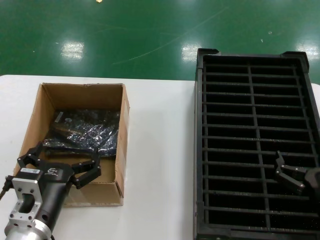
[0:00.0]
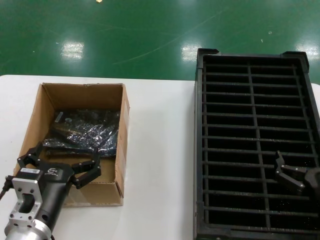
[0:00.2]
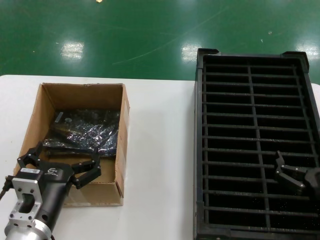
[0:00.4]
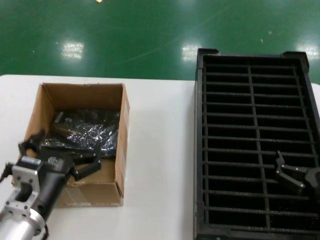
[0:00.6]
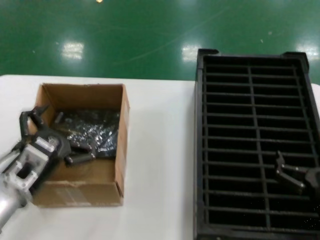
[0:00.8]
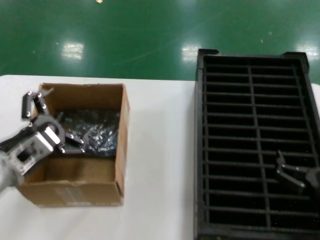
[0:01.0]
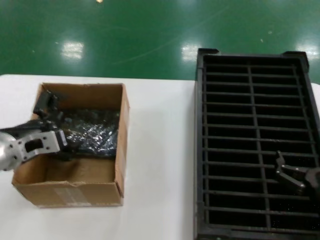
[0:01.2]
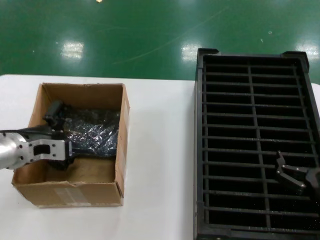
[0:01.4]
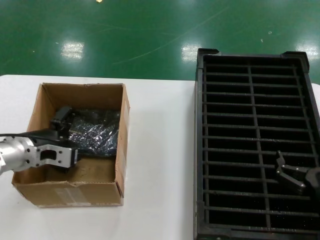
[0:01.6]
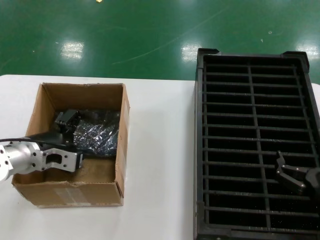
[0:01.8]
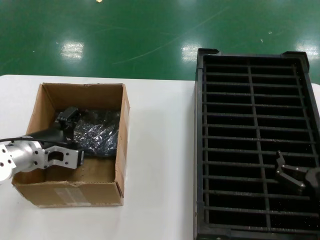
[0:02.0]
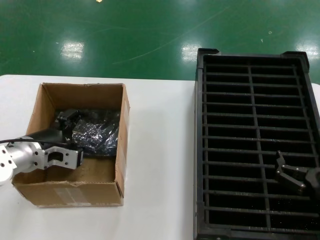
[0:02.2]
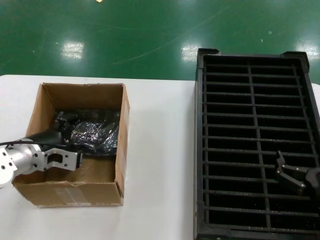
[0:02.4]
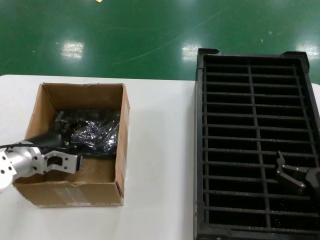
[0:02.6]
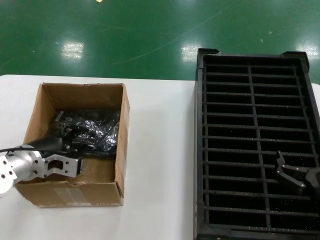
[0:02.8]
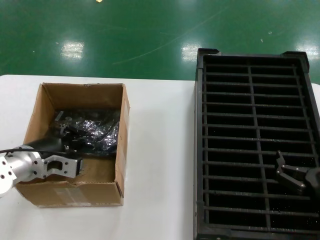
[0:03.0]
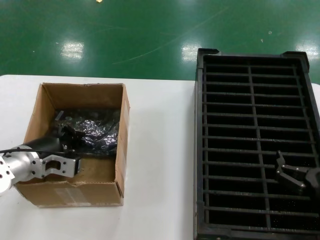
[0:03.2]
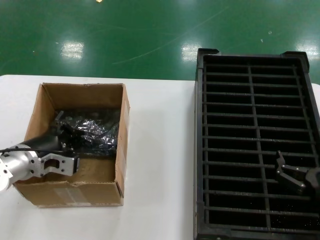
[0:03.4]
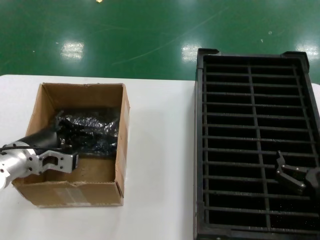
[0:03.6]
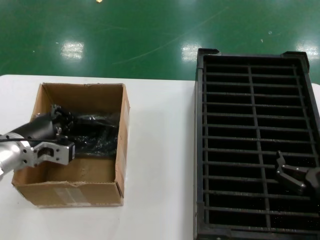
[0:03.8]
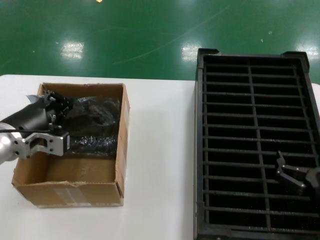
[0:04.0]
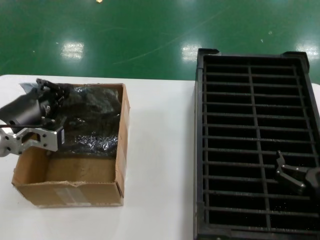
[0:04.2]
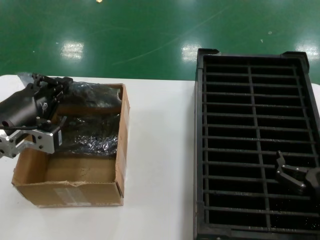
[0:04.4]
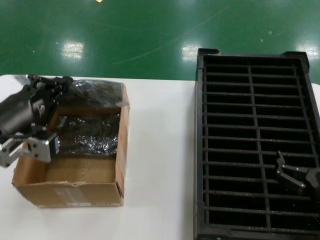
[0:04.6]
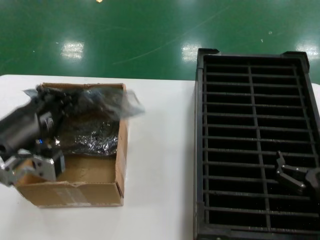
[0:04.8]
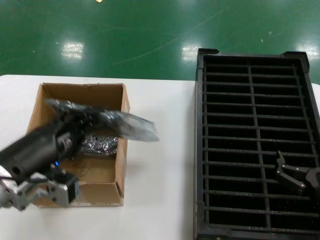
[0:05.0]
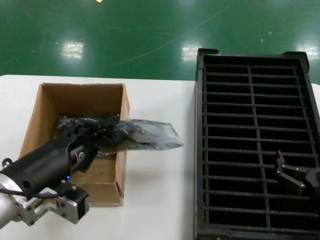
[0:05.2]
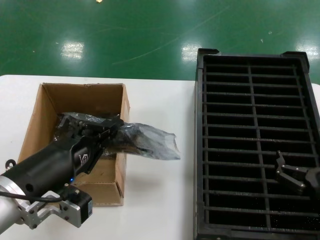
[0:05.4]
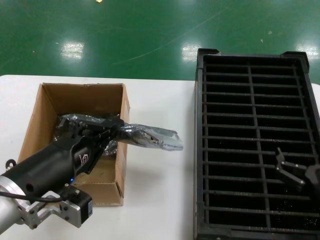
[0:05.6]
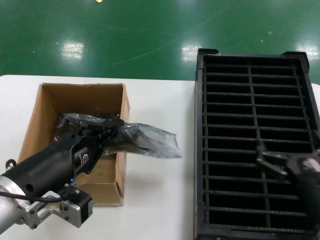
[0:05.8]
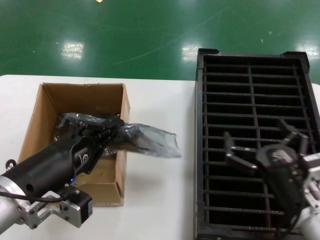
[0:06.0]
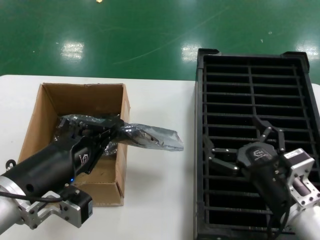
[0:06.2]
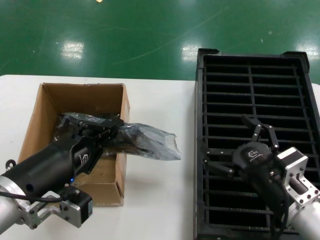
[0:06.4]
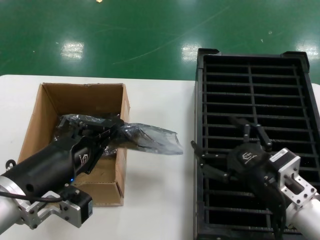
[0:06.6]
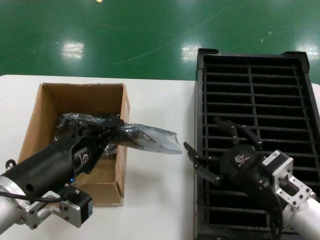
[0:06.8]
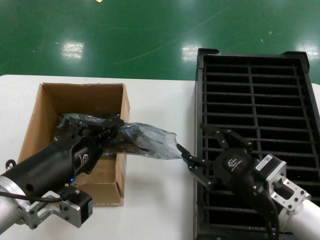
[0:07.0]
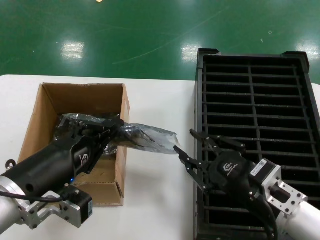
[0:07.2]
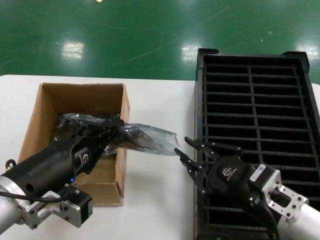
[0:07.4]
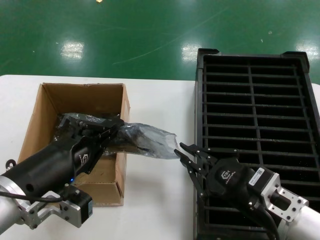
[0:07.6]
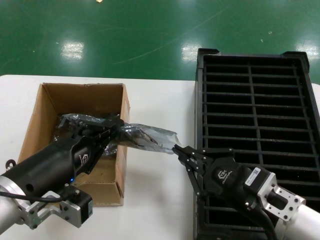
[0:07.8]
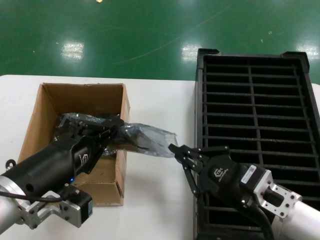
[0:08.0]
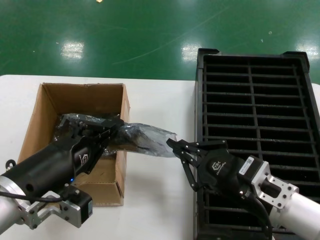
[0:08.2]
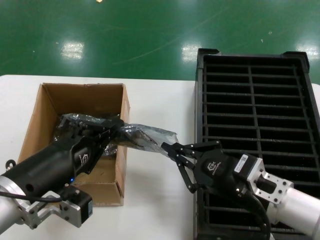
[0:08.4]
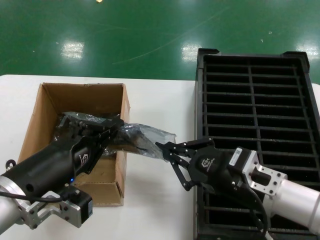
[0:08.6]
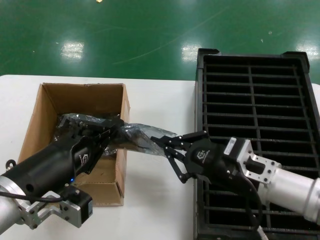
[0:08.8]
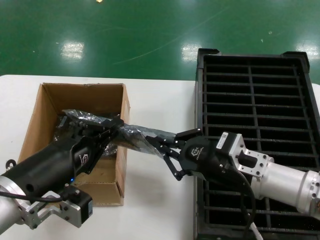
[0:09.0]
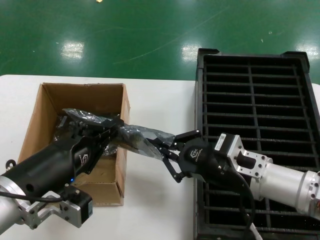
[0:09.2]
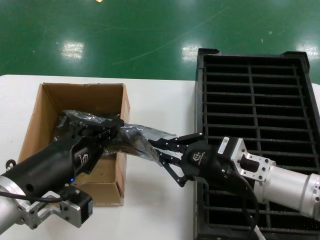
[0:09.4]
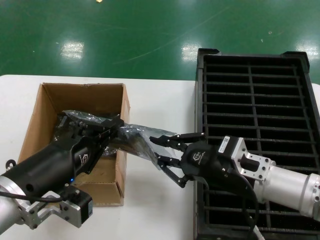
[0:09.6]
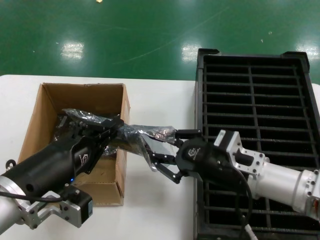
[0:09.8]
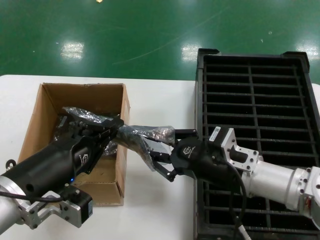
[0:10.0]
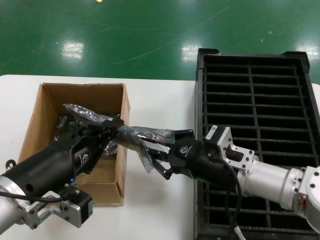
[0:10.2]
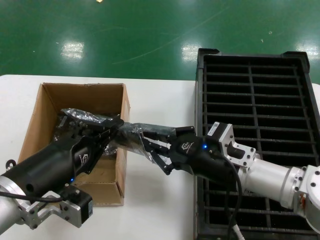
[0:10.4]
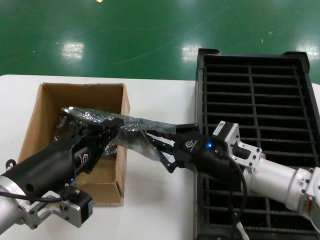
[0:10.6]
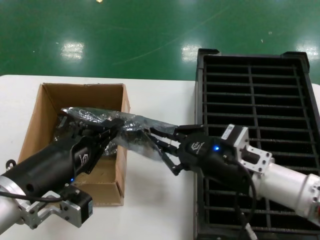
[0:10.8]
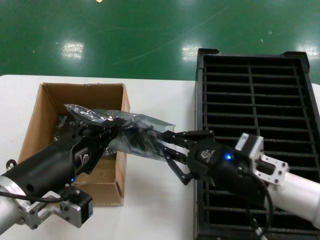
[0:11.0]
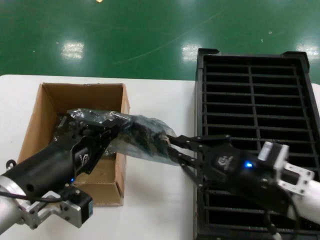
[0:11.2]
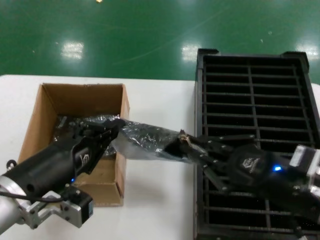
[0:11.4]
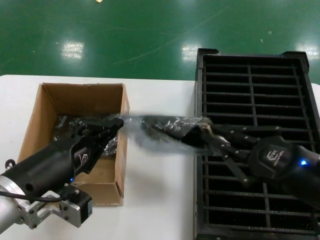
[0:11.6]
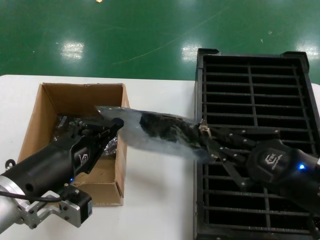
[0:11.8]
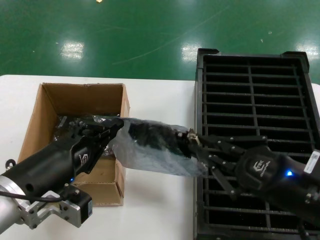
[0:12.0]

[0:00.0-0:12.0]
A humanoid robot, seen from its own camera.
Task of the whole recording: take out graphics card from box remove packaging put into black container.
Step, 0:00.0 to 0:03.6: Grasp the bag.
Step, 0:03.8 to 0:05.6: Lift the bag.
0:00.0 to 0:01.6: The left hand moves forward, to the left and upward, approximately 20 cm.
0:01.6 to 0:03.0: The hands make only small movements.
0:03.0 to 0:04.4: The left hand goes some 10 cm upward and backward.
0:04.4 to 0:06.0: The right hand travels to the left by some 5 cm, while the left hand goes approximately 10 cm backward and to the right.
0:07.6 to 0:09.0: The right hand is displaced forward by approximately 5 cm.
0:09.0 to 0:10.4: There are only small adjustments of the hands.
0:10.4 to 0:12.0: The right hand shifts some 15 cm backward and to the right.

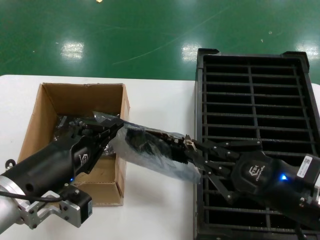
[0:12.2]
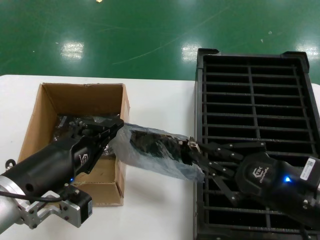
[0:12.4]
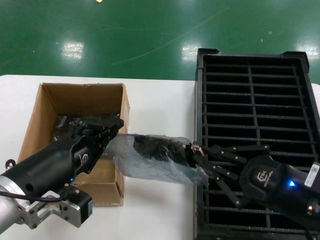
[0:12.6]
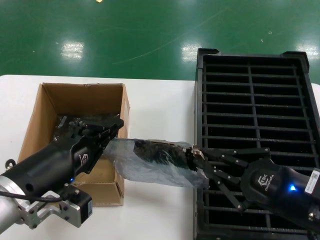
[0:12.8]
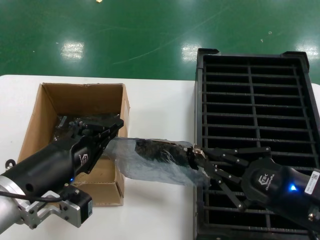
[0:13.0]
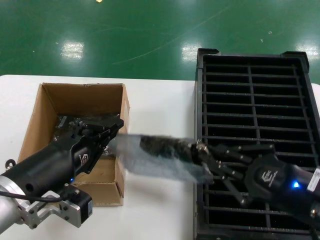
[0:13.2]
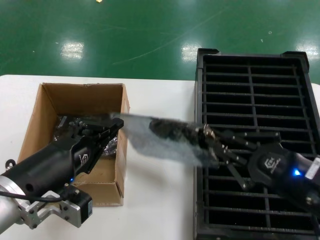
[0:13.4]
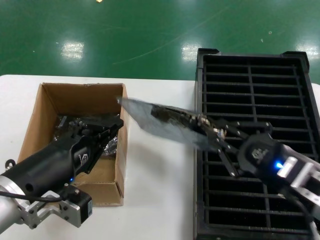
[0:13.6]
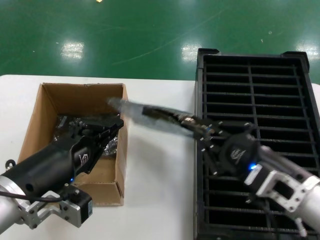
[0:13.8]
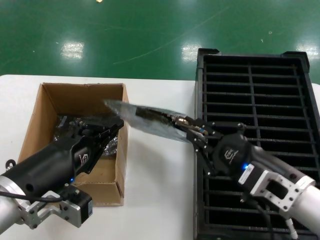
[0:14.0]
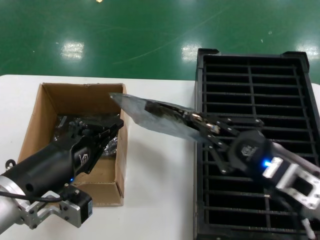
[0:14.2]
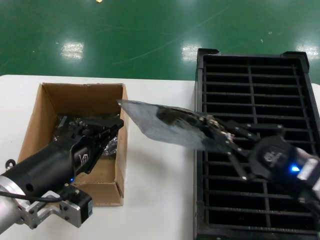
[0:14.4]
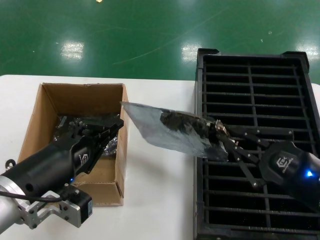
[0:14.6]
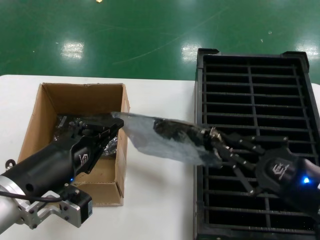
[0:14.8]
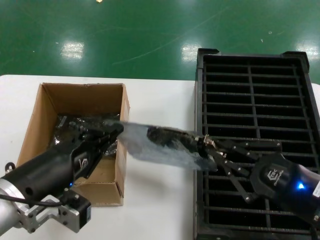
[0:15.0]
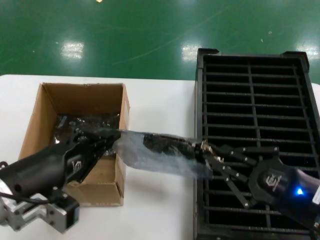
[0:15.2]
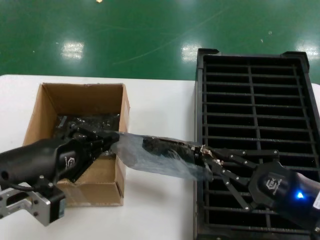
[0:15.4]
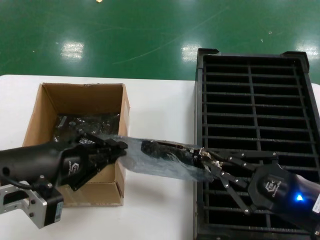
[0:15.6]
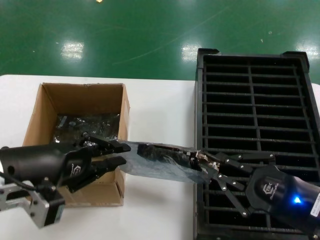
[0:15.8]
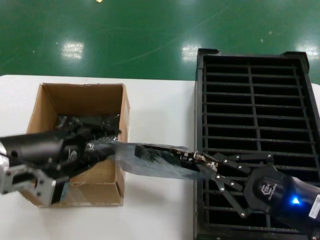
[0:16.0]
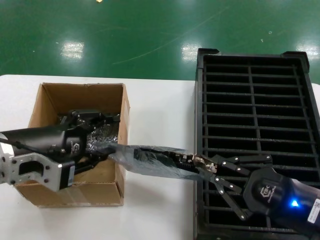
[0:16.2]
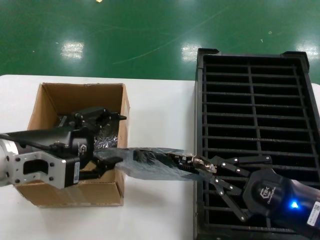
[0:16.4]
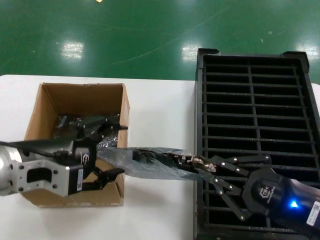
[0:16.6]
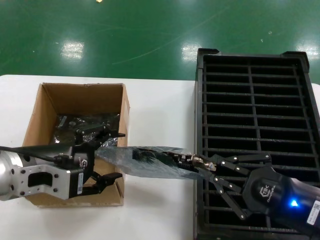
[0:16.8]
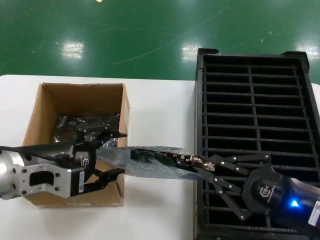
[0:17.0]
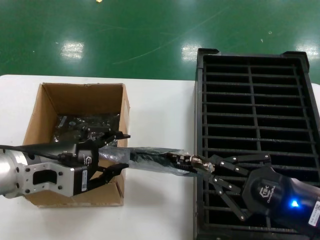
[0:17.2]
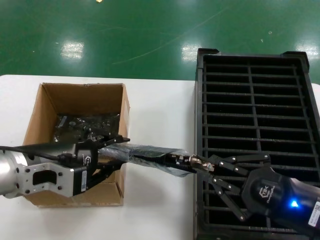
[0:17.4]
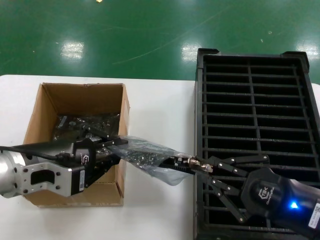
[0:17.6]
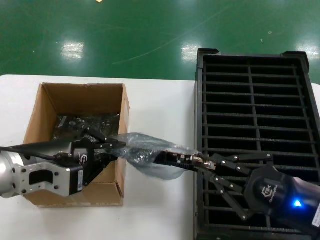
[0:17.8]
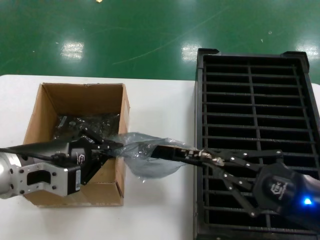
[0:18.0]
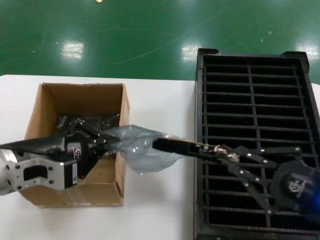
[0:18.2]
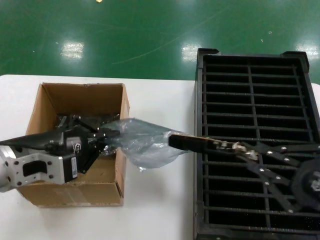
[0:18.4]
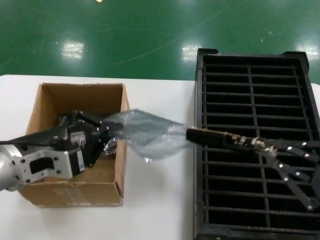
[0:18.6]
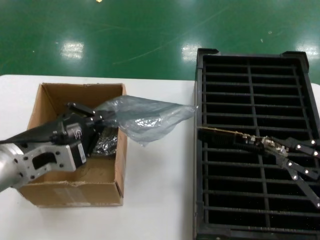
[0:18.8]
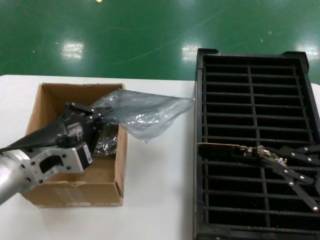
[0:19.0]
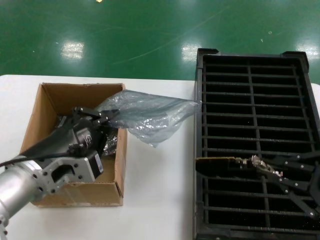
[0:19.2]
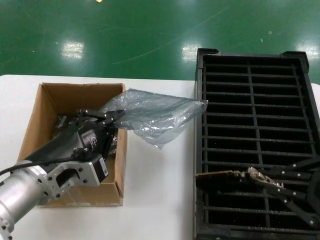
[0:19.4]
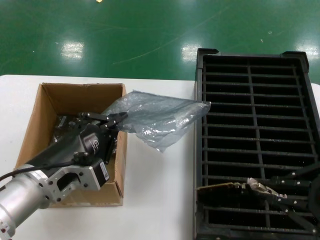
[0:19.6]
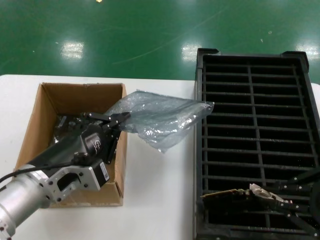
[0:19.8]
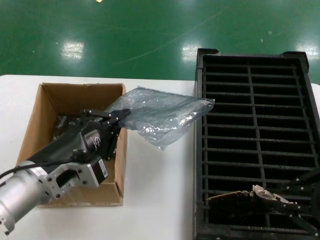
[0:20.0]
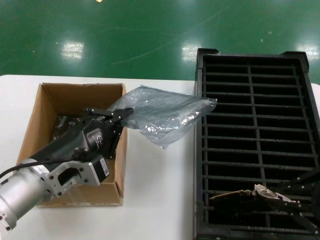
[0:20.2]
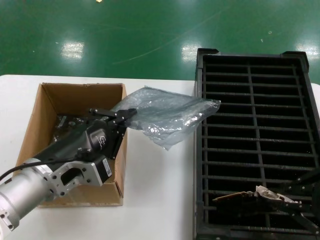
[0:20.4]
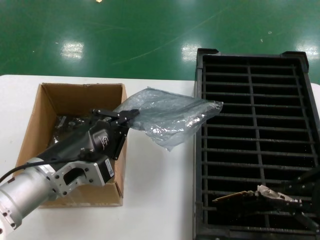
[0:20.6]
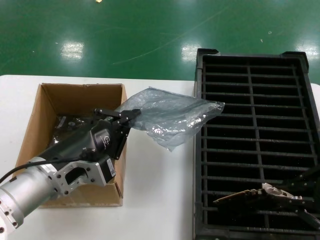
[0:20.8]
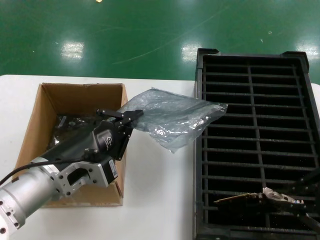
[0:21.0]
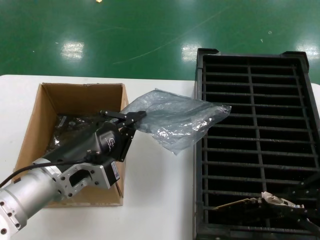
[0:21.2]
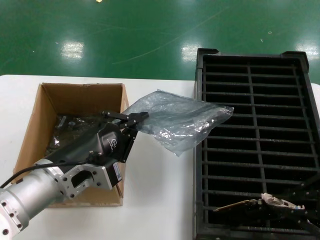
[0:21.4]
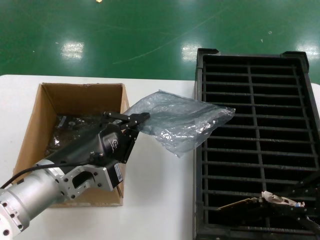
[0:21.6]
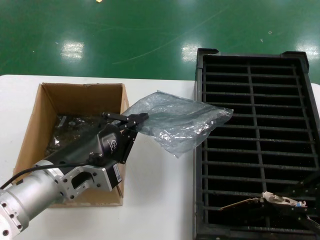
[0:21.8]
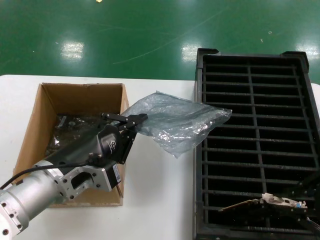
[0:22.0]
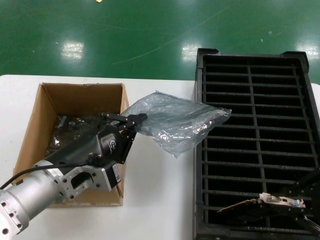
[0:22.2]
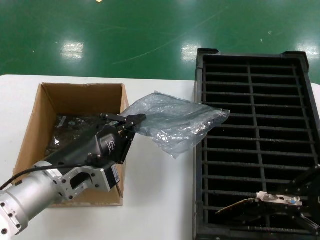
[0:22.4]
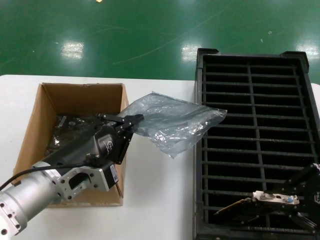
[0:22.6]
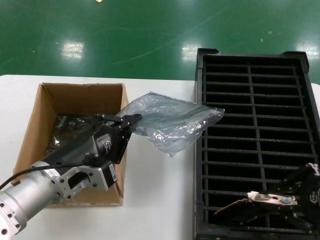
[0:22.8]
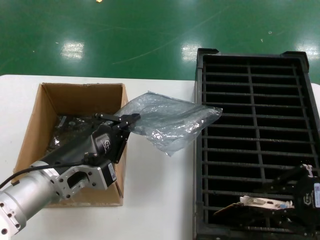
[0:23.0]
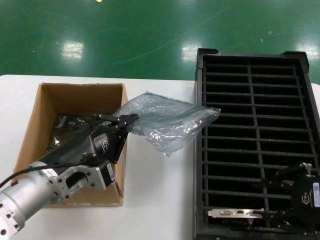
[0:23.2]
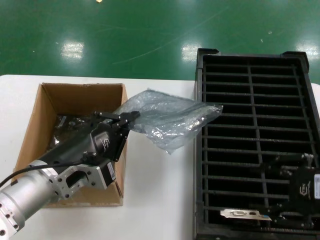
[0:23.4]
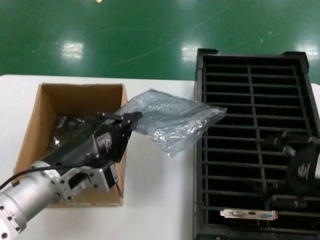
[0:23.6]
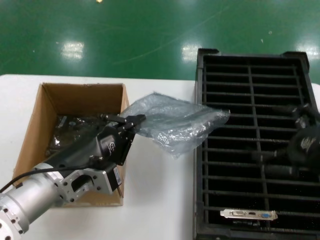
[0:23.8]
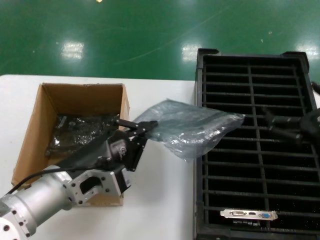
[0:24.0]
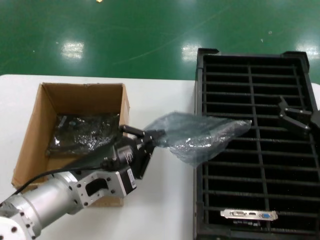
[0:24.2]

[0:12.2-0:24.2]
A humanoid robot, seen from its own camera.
Task of the whole recording: take out graphics card from box remove packaging put into black container.
Step, 0:12.2 to 0:18.8: Take out the hard disk of the bag.
Step, 0:19.0 to 0:23.4: Place the hard disk in the hard disk enclosure.
0:12.2 to 0:13.8: The right hand ends up roughly 5 cm from where it was.
0:13.8 to 0:15.2: The right hand travels to the right by approximately 5 cm.
0:15.2 to 0:16.6: The left hand goes approximately 5 cm upward.
0:16.6 to 0:18.2: The hands stay close to where they were, moving slightly.
0:18.2 to 0:19.8: The left hand goes some 10 cm downward and to the right; the right hand travels upward by some 10 cm.
0:19.8 to 0:22.6: The hands make only small movements.
0:22.6 to 0:24.2: The right hand heads downward, covering approximately 10 cm.
